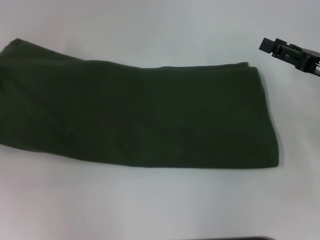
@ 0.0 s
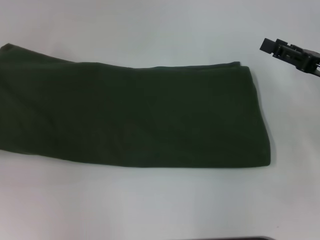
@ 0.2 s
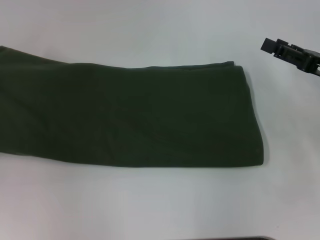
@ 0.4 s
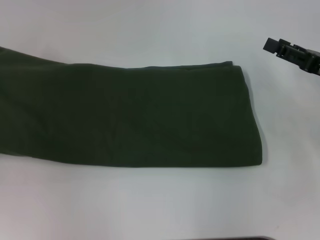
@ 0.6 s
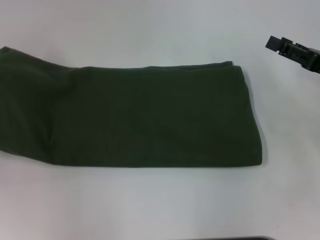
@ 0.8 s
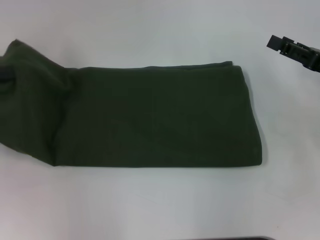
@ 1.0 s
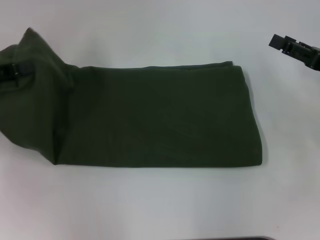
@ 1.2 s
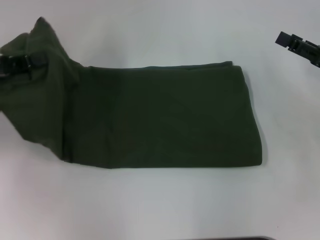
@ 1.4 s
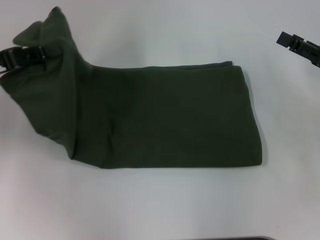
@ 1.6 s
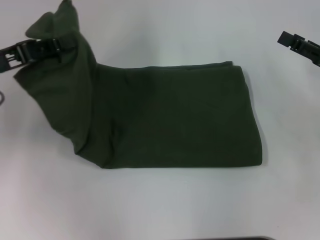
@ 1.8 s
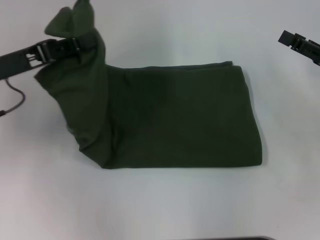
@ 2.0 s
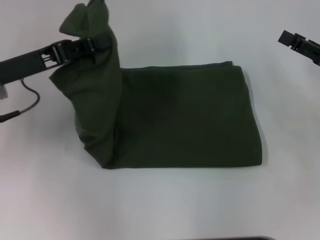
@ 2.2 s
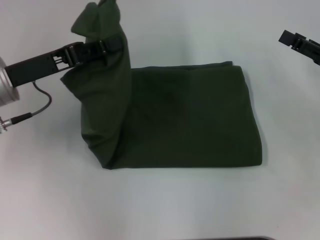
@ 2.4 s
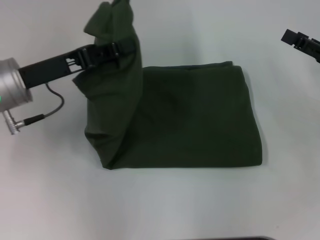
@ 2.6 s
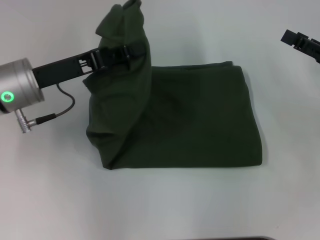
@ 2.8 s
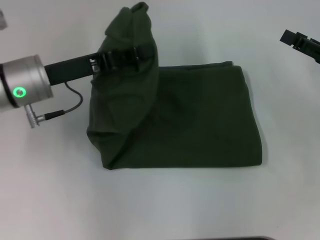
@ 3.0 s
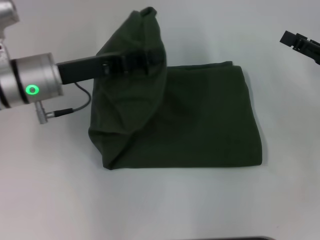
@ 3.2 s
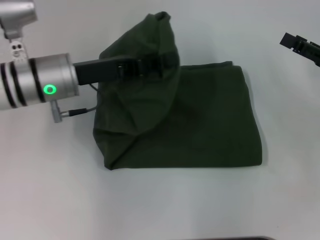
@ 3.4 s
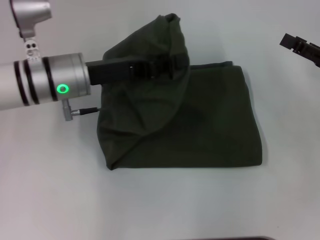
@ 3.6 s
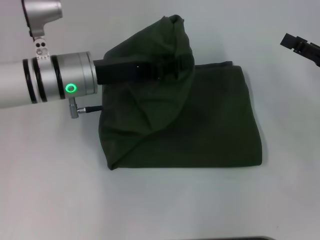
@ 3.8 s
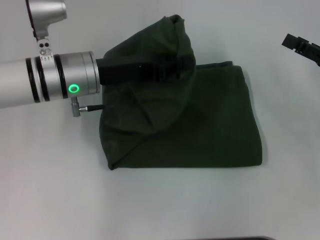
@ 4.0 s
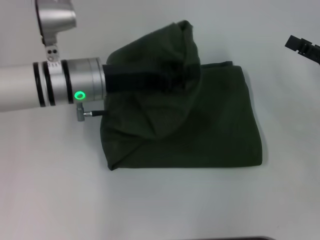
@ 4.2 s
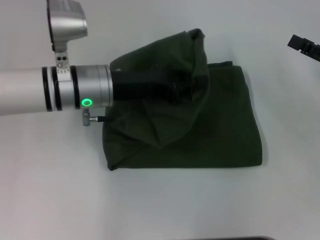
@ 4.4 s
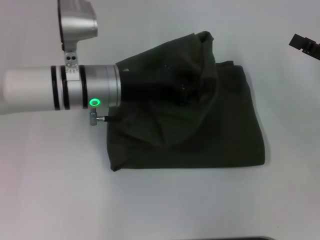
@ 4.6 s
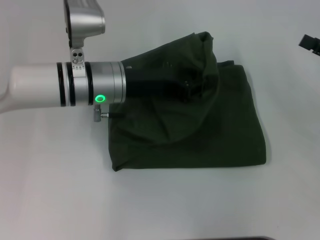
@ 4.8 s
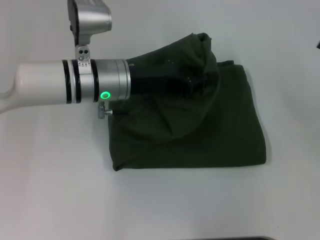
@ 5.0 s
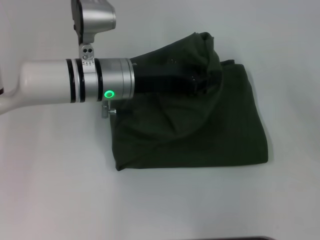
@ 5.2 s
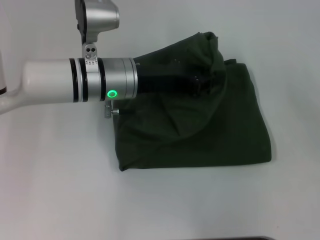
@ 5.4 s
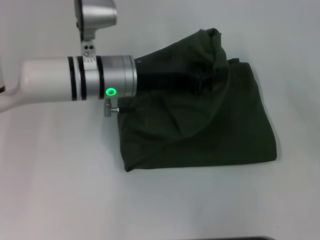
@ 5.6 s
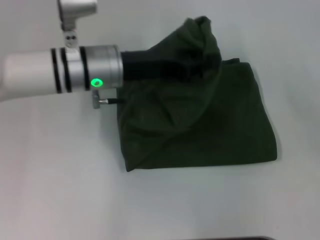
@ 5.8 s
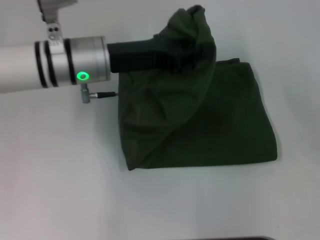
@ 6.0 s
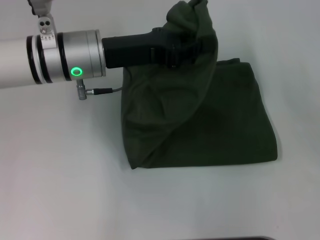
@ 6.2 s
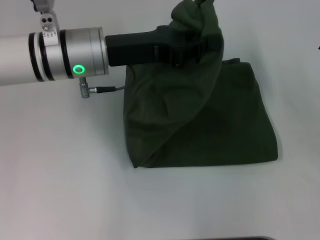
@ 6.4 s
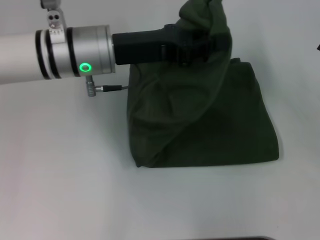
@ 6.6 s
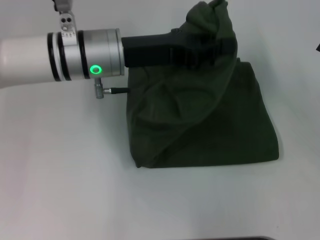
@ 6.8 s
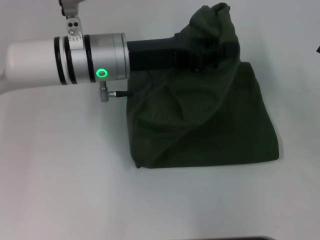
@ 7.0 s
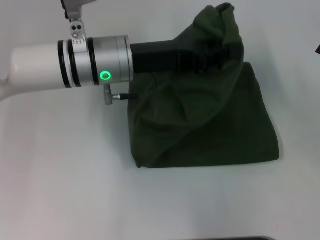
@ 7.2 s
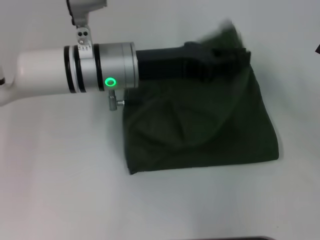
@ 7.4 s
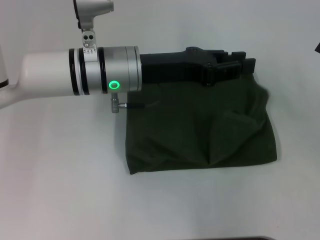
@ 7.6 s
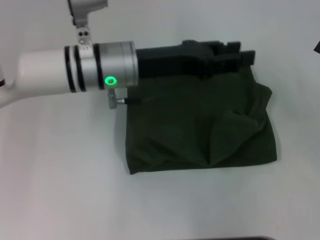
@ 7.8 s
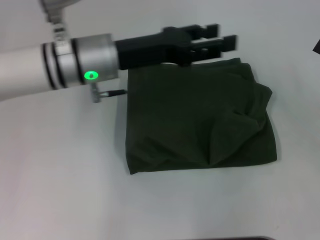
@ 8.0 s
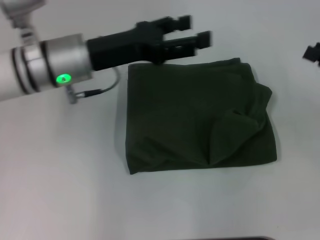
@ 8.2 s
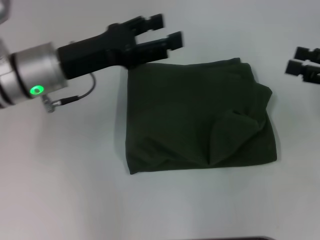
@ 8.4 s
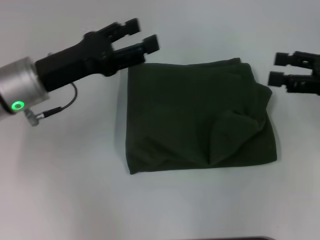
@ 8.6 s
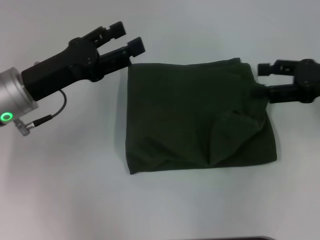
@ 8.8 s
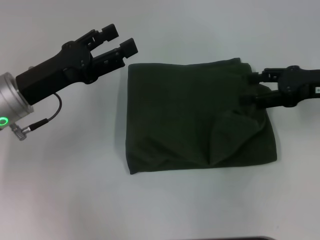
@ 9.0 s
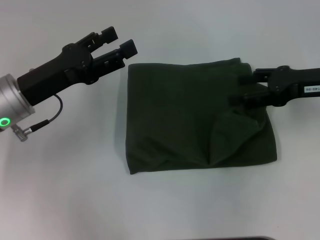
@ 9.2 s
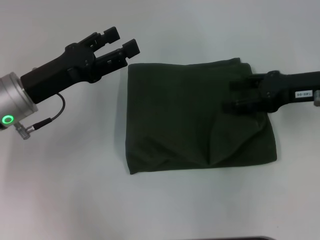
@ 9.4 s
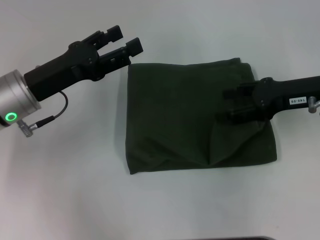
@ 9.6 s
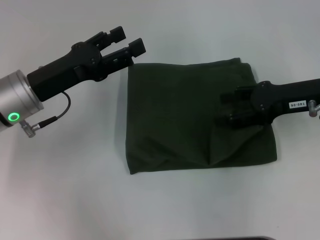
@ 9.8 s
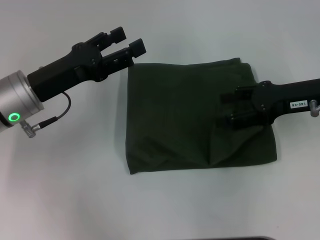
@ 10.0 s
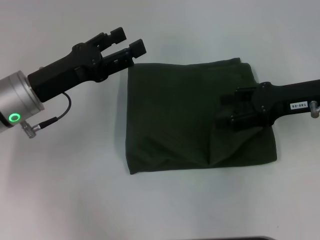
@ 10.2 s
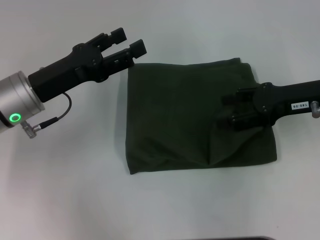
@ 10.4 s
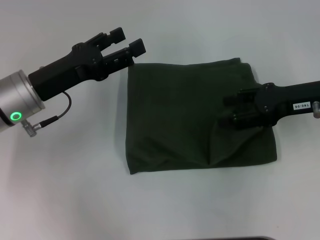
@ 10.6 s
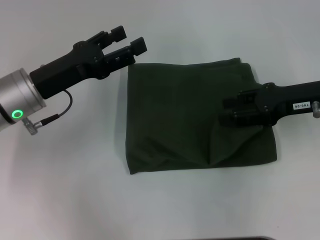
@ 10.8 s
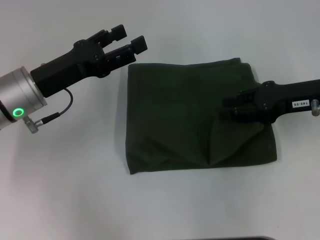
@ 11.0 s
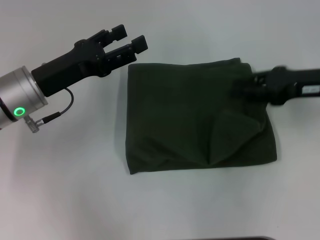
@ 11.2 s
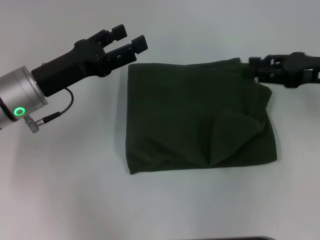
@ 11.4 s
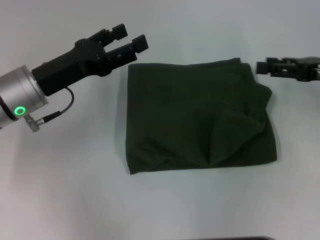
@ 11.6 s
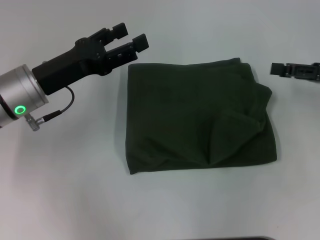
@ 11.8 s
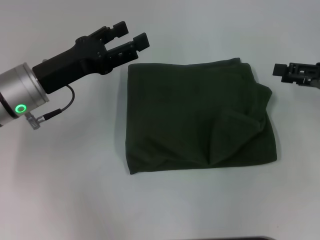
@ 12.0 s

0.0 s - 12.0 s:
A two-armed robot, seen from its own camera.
Step, 0.0 s - 7.4 s: Fold the clothes with your left hand.
0.0 s - 1.6 s: The left gripper shifts about 10 cm to the right.
1.6 s - 3.0 s: The left gripper travels to the right by some 10 cm.
3.0 s - 4.4 s: The left gripper heads to the right, covering about 5 cm.
4.4 s - 7.6 s: There are only small adjustments of the grippers.
7.6 s - 9.0 s: The right gripper shifts approximately 10 cm to the left and forward; the left gripper heads to the left, covering approximately 15 cm, and opens its fingers.
9.0 s - 10.4 s: The grippers make only small movements.
10.4 s - 12.0 s: The right gripper heads to the right, covering roughly 10 cm, and closes, then reopens.

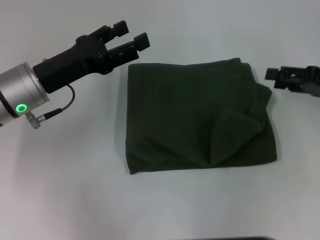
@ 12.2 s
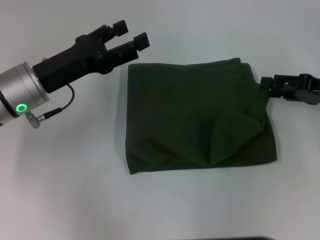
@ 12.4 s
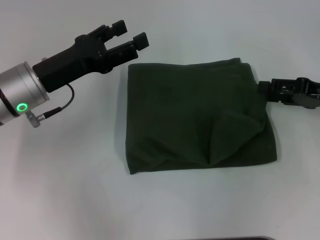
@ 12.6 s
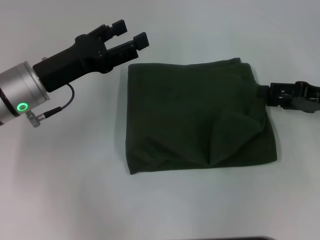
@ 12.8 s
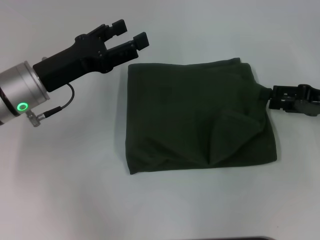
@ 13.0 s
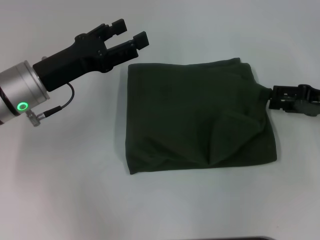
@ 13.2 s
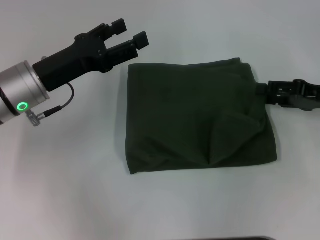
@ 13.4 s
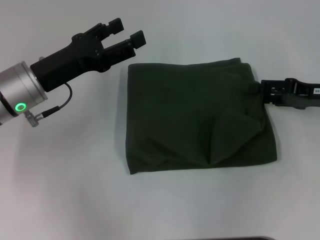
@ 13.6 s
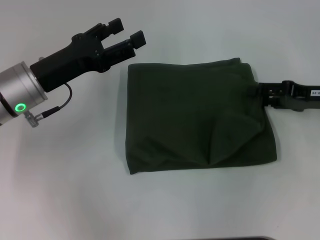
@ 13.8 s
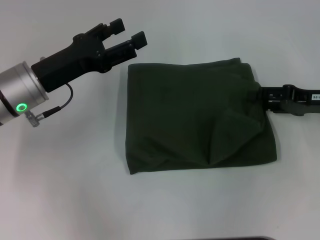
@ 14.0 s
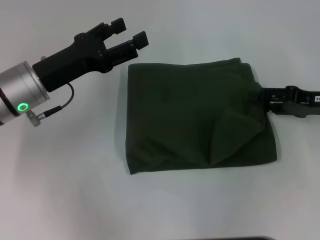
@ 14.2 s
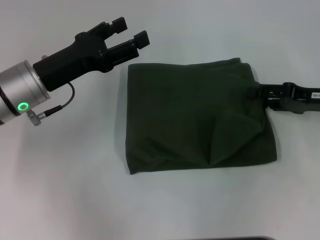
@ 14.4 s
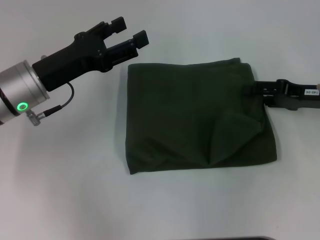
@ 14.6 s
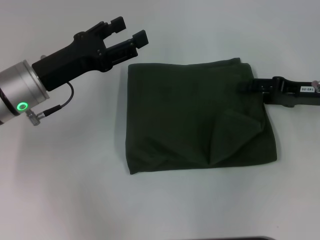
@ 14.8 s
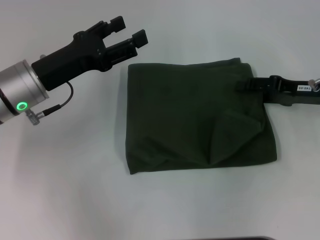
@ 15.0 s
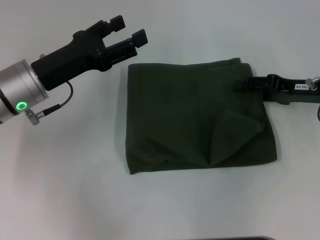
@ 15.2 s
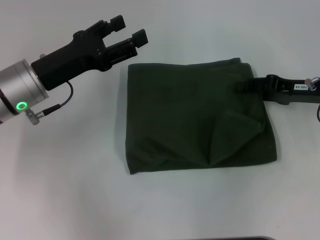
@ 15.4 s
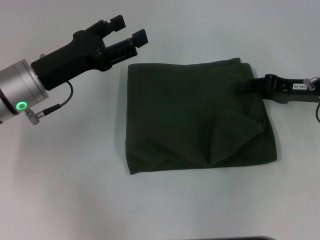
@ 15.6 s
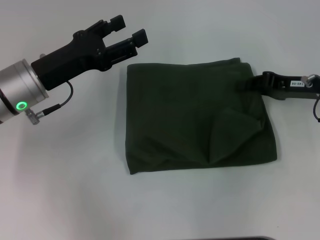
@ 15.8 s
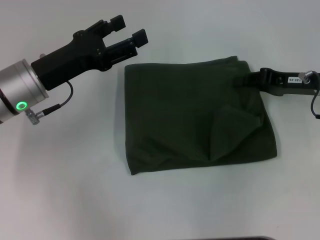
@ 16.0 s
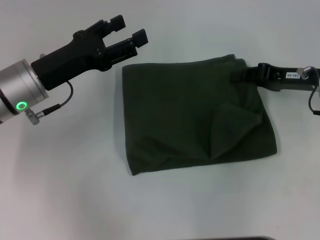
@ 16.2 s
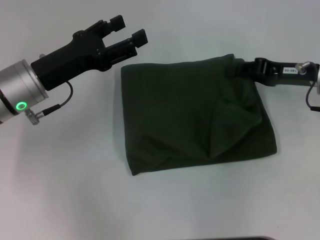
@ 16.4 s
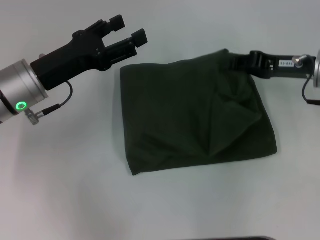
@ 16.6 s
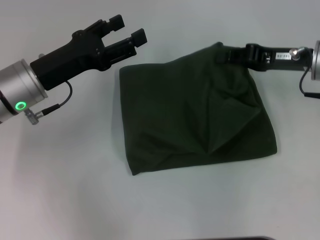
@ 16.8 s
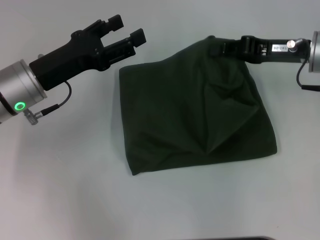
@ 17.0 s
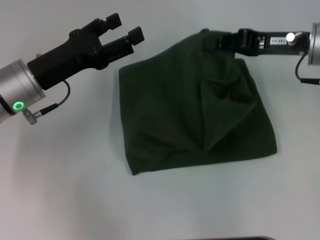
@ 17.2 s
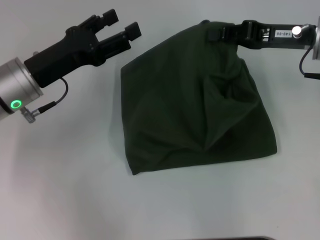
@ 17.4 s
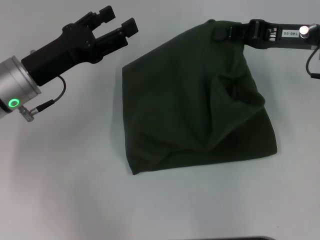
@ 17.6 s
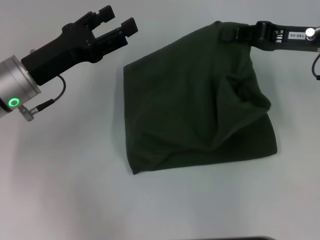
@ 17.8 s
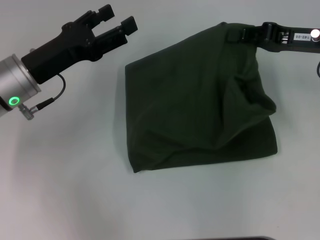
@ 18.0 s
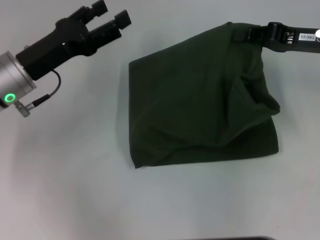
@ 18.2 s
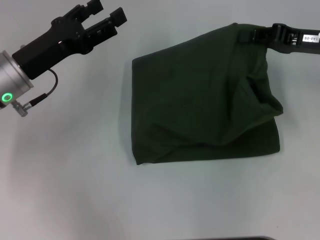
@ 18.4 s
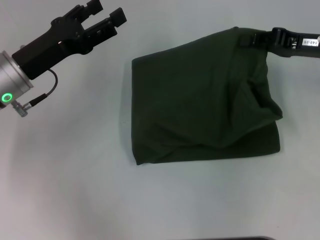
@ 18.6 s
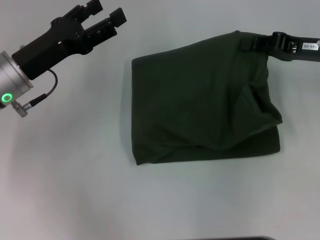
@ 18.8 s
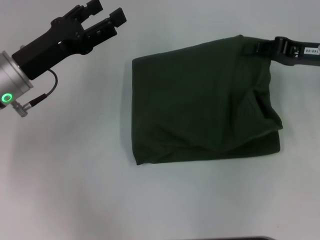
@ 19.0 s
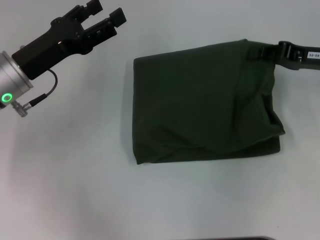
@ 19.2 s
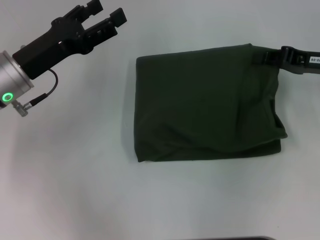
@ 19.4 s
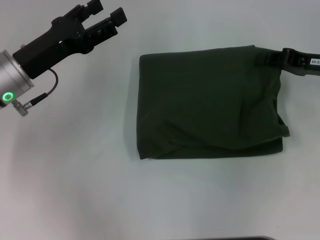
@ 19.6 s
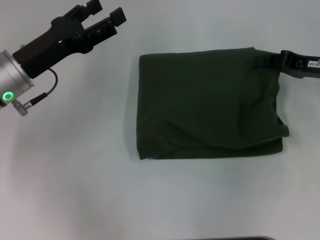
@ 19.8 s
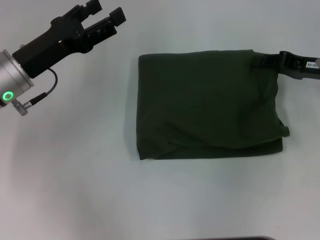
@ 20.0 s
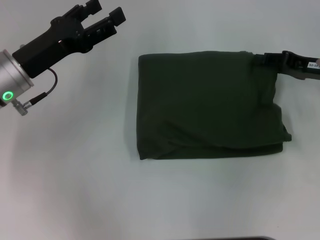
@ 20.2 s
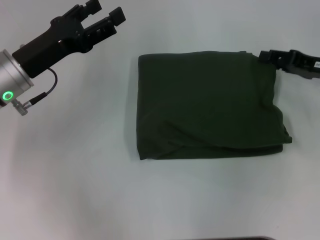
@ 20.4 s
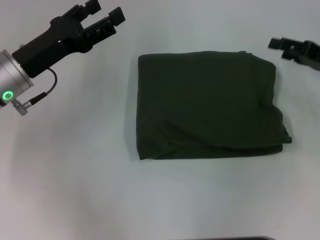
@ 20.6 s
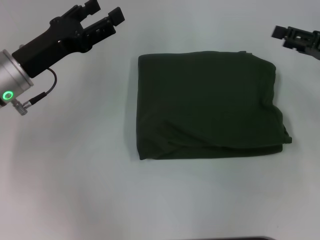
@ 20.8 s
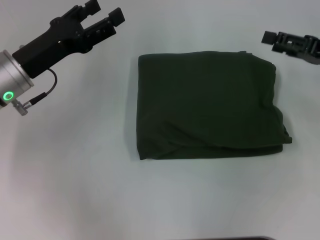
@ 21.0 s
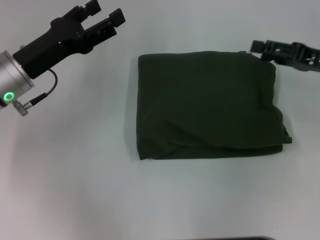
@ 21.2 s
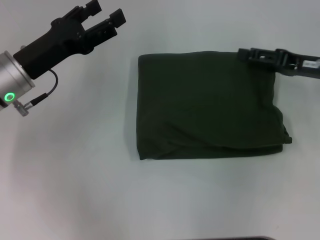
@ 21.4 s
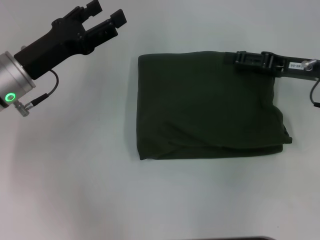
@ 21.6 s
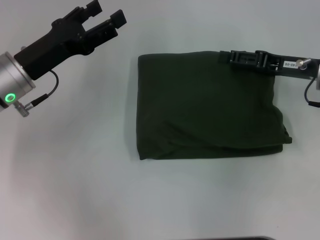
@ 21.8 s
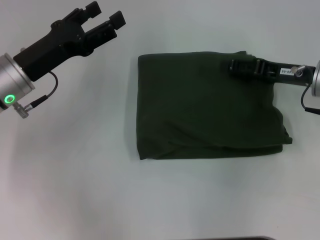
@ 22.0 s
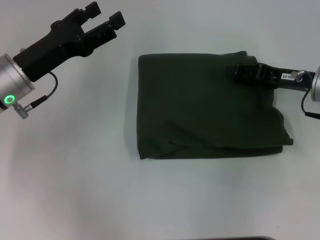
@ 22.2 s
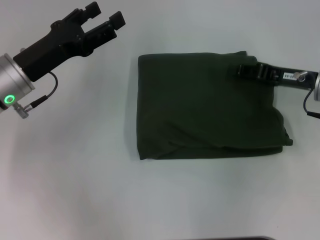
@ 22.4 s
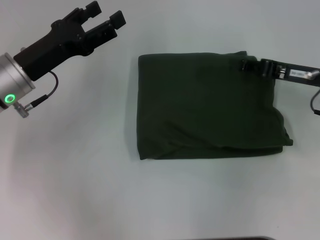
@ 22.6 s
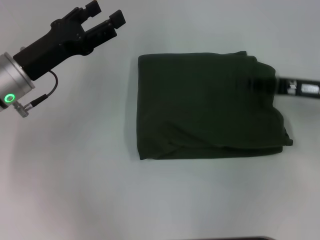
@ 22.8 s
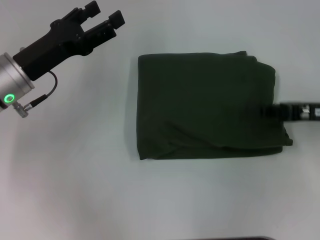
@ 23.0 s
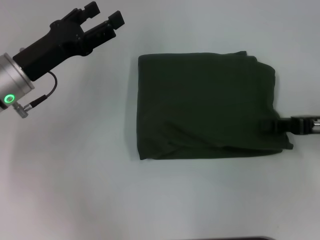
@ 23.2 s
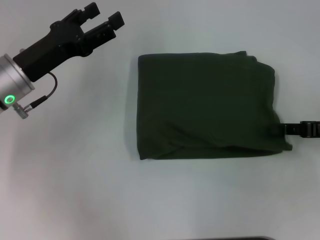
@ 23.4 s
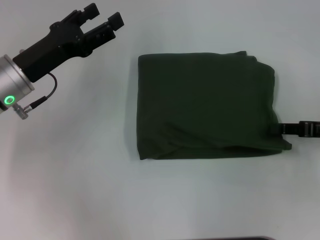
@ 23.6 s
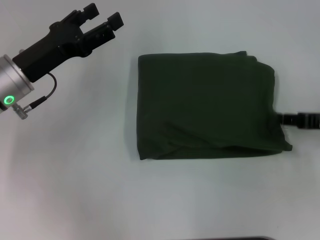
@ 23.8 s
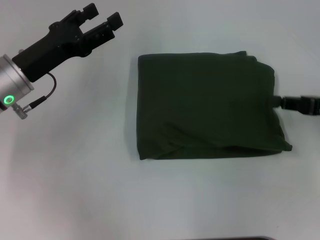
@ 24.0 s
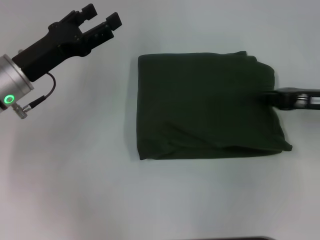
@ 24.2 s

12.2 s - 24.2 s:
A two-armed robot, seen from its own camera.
12.2 s - 15.2 s: There are only small adjustments of the grippers.
15.2 s - 16.6 s: The right gripper closes up.
18.2 s - 19.8 s: The right gripper shifts by some 5 cm.
19.8 s - 21.2 s: The right gripper opens.
21.2 s - 22.6 s: The right gripper closes its fingers.
